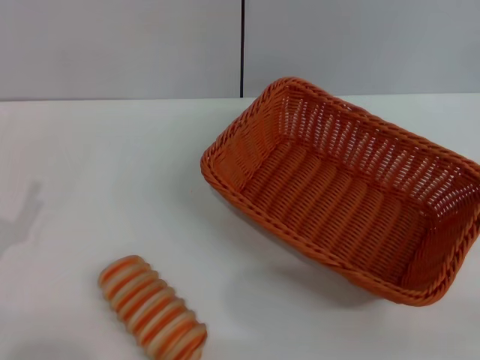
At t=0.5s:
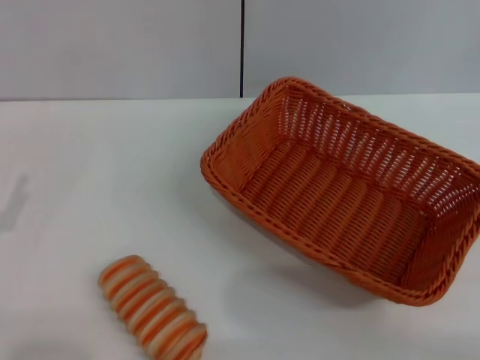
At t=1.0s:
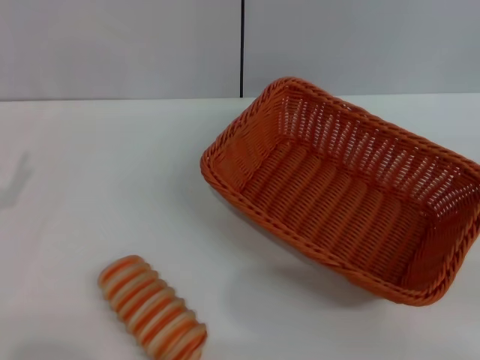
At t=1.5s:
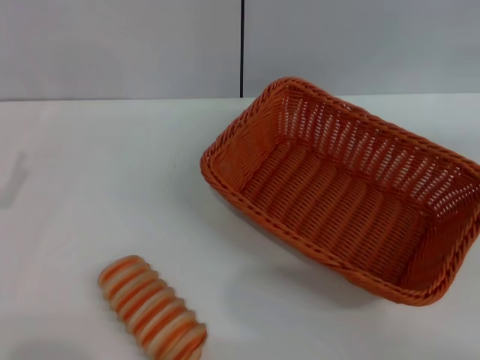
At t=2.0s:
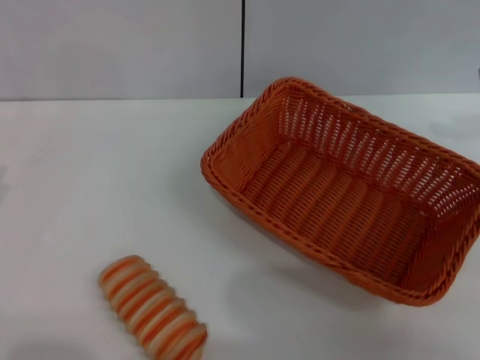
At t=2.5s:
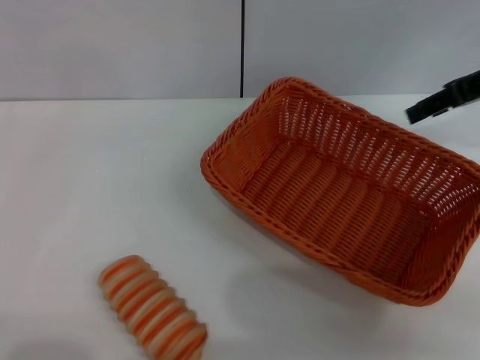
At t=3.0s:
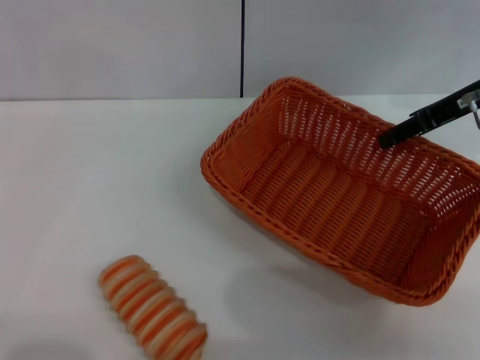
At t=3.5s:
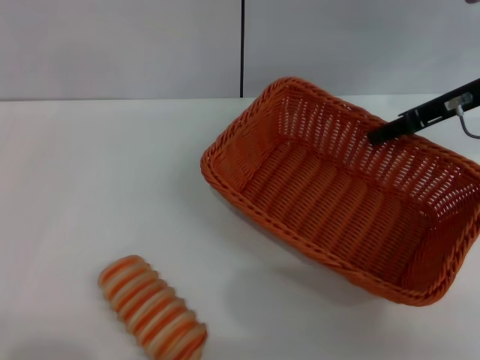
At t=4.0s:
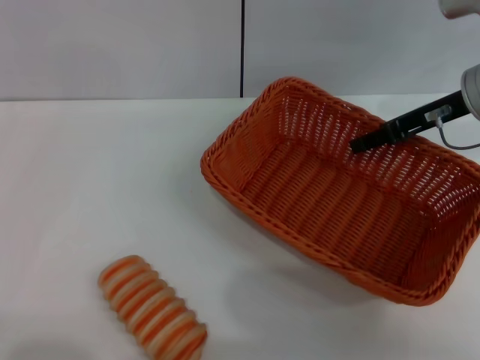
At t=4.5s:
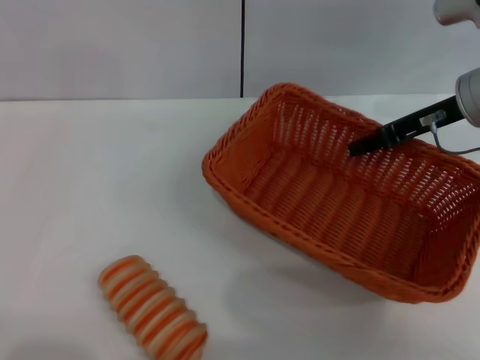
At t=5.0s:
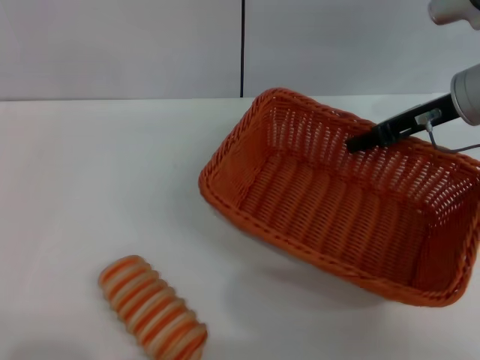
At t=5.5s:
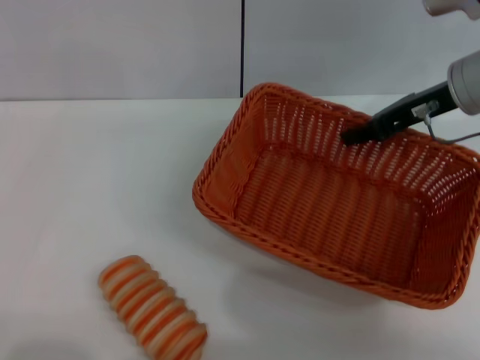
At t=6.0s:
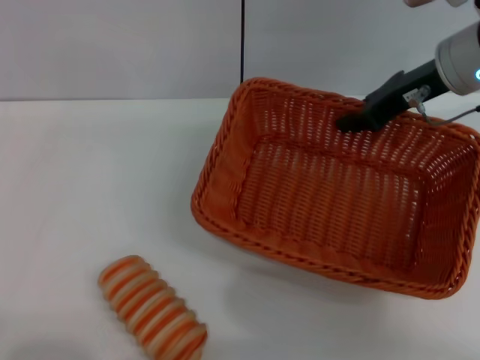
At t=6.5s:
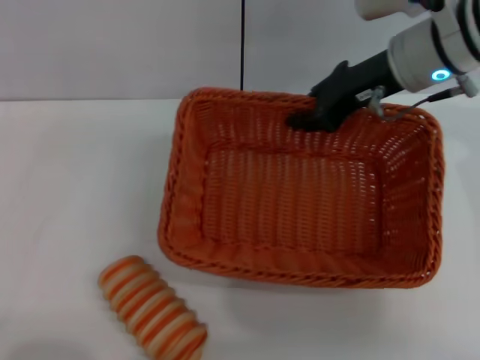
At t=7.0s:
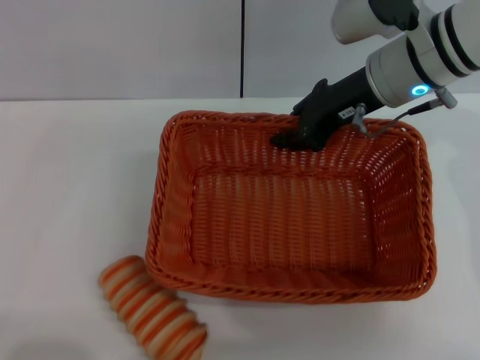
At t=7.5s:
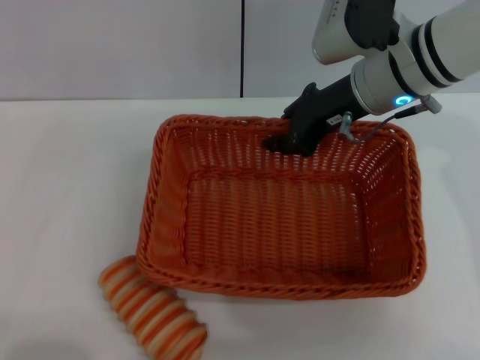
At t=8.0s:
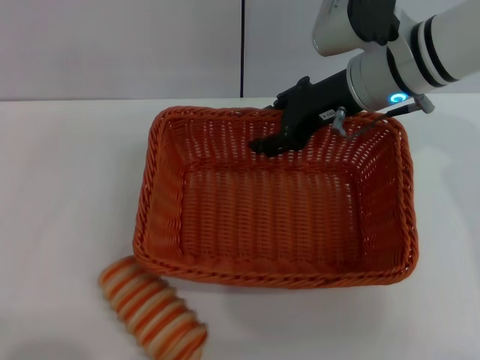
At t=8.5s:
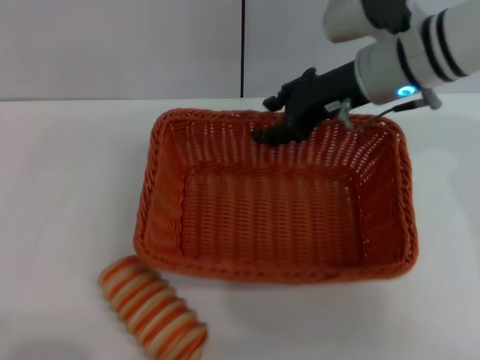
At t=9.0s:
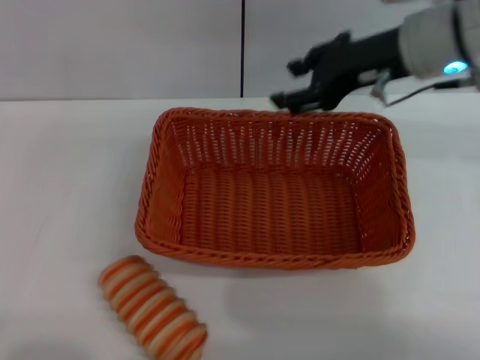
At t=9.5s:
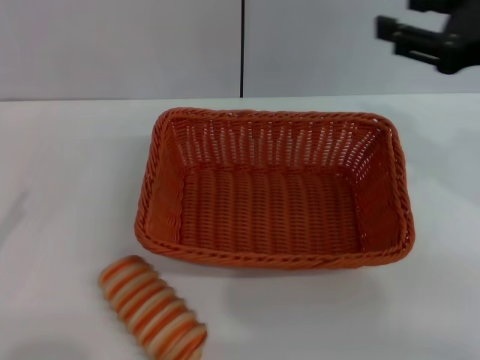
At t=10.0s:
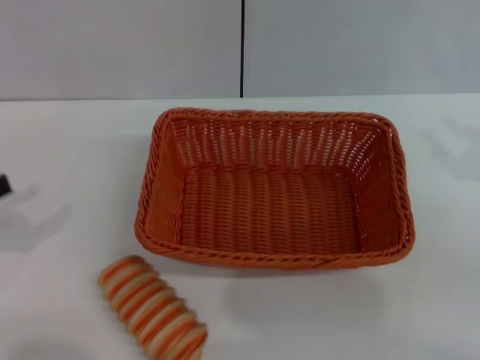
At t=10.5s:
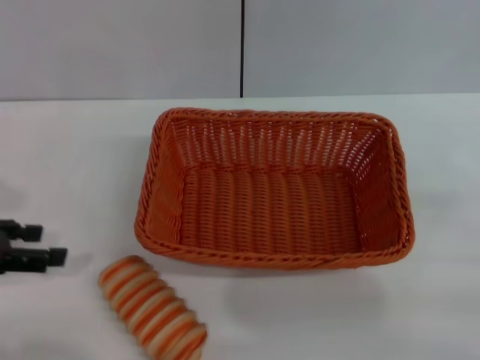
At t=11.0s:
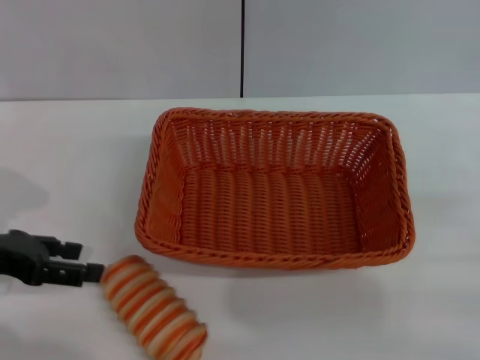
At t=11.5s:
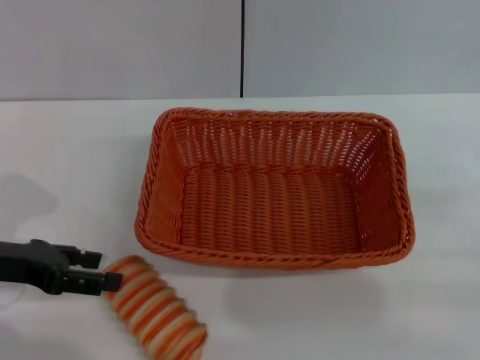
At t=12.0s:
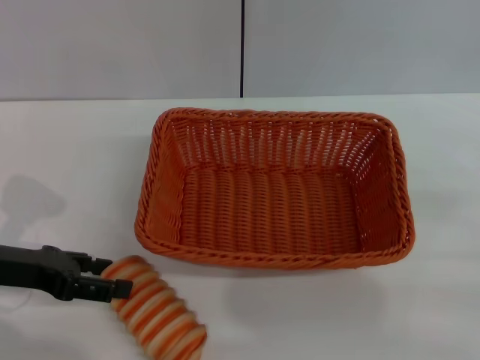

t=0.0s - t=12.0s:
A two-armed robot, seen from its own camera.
Step, t=0.0s - t=6.0s: Pick up the light basket with the right gripper.
Step, t=6.5s - t=9.0s: Place the light basket in the center of view with the right gripper.
t=0.0s - t=2.0s: The right gripper goes roughly 25 cm forward and upward, and opens.
t=2.0s - t=4.0s: The right gripper shifts about 15 cm to the left and downward.
t=4.0s - t=6.0s: The right gripper ends up approximately 5 cm from where it was, and closes its fingers.
t=6.0s - t=8.0s: The right gripper goes approximately 5 cm to the left.
t=8.0s - t=10.0s: The left gripper travels upward and forward by approximately 10 cm. The right gripper goes about 25 cm to the right and backward, and opens its fingers.
t=10.0s - t=12.0s: The left gripper goes some 10 cm to the right and forward.

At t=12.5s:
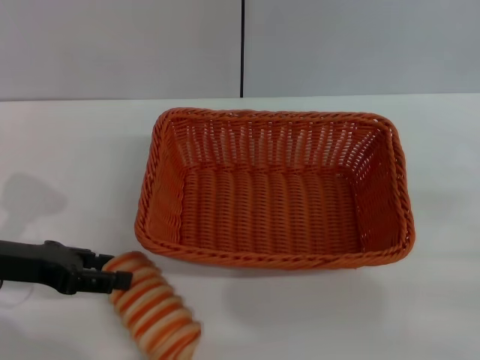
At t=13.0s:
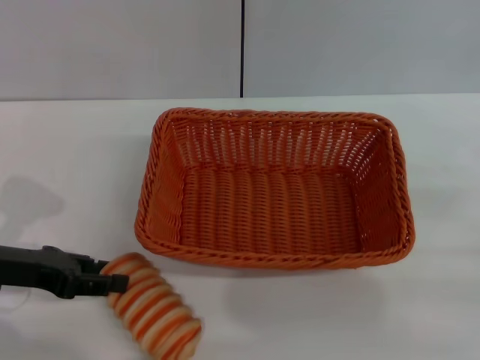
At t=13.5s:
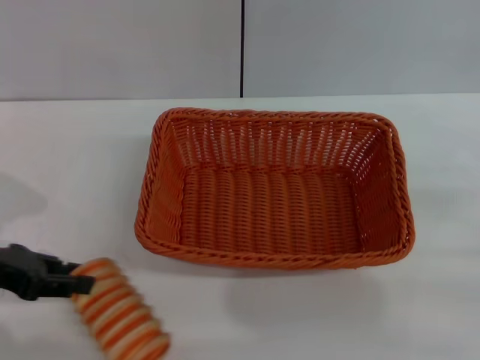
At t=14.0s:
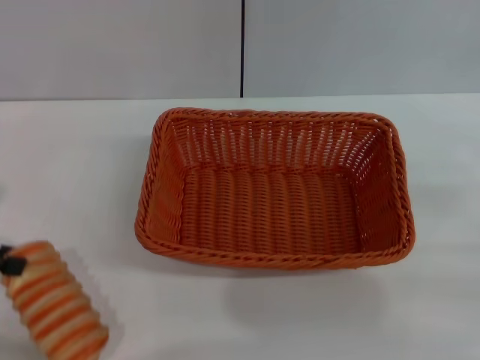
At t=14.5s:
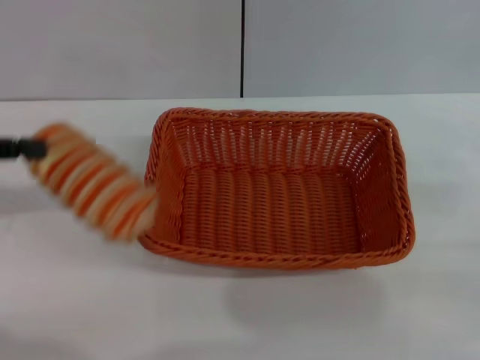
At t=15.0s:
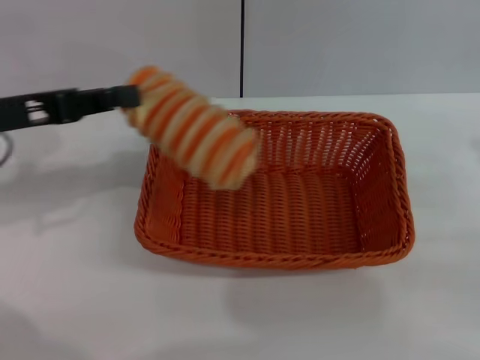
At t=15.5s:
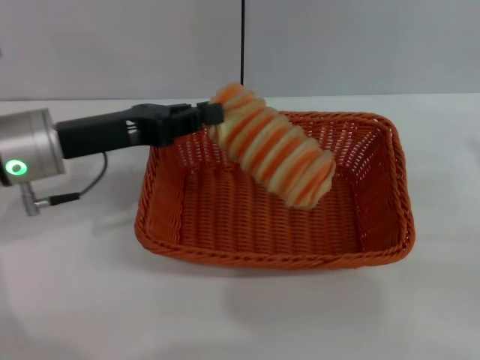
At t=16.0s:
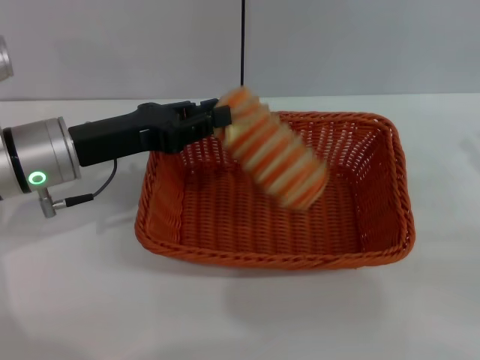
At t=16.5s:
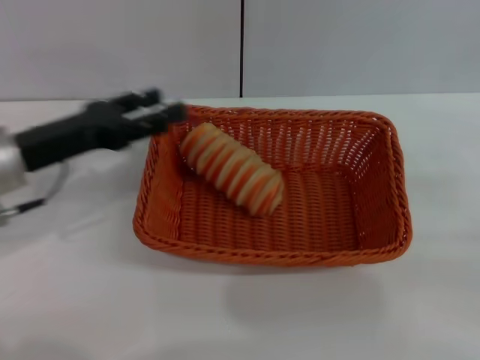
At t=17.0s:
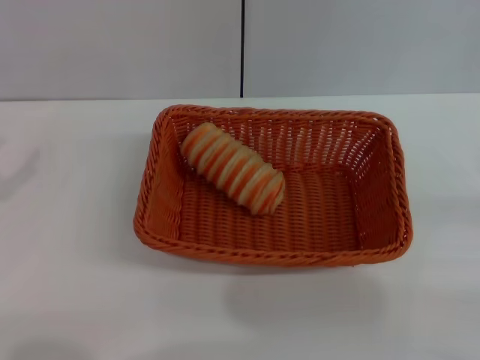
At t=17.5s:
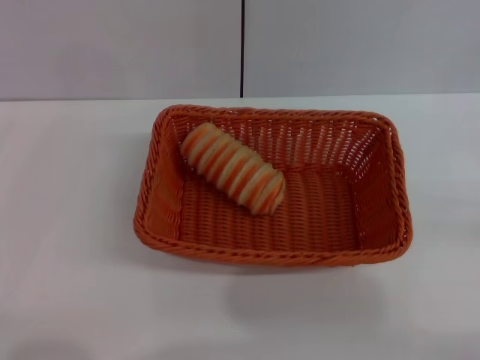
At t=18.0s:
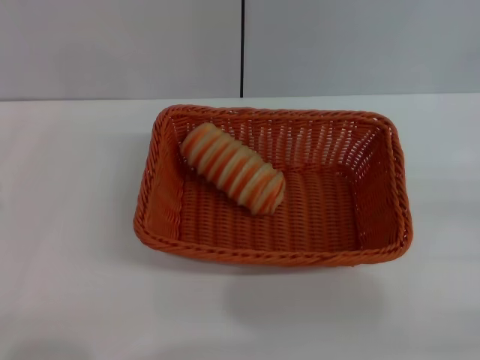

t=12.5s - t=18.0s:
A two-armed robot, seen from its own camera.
Step, t=14.5s - t=16.0s: Place the long bread into the light basket with the left gripper.
t=12.5s - t=14.5s: The left gripper travels upward and to the left by about 10 cm, and closes its fingers.
t=14.5s - t=16.0s: The left gripper is displaced to the right and downward by about 15 cm.
t=16.0s - t=18.0s: The right gripper changes place by some 5 cm. Meanwhile the left gripper moves backward and to the left, about 25 cm, and opens.

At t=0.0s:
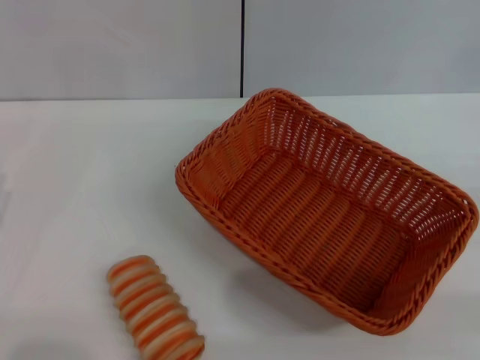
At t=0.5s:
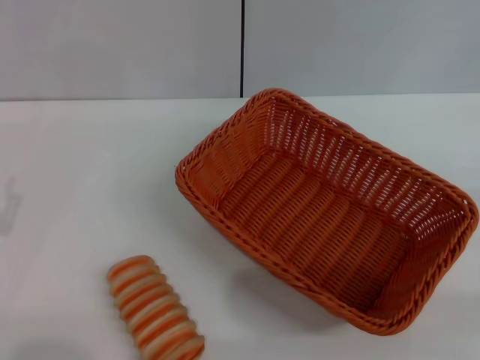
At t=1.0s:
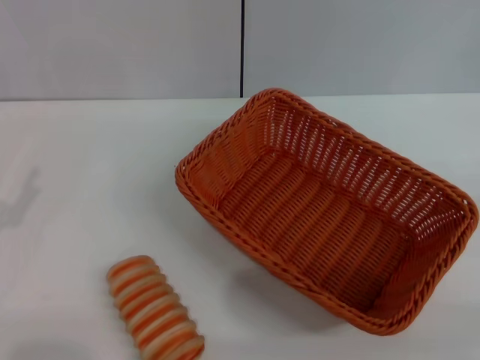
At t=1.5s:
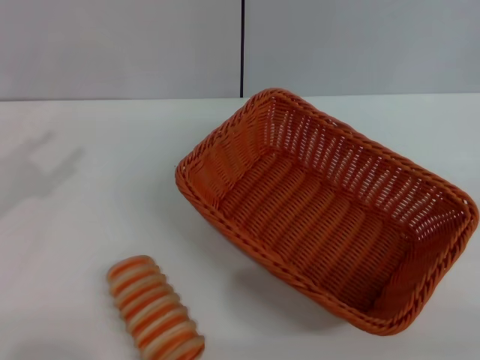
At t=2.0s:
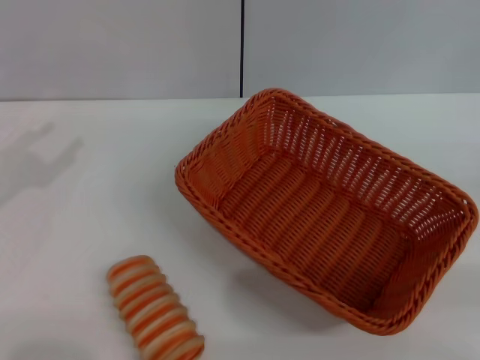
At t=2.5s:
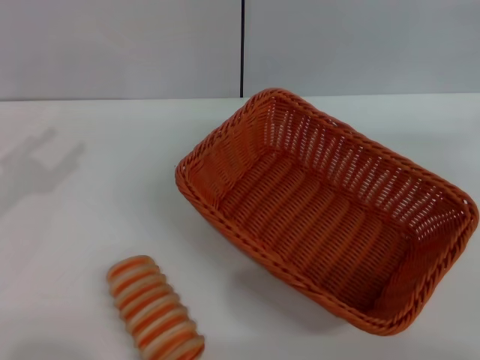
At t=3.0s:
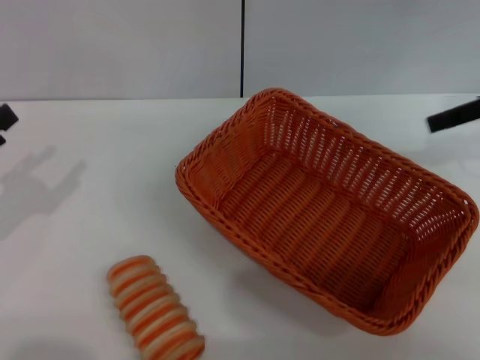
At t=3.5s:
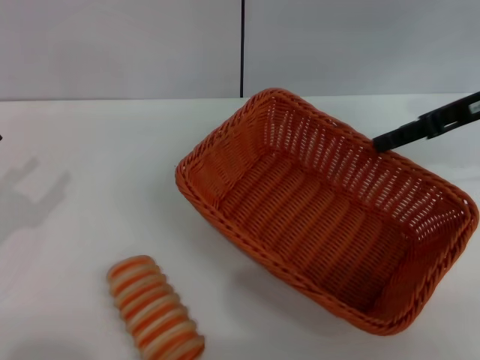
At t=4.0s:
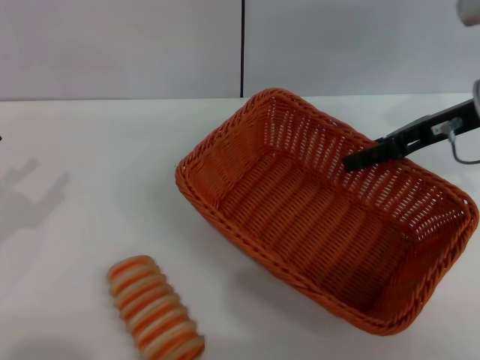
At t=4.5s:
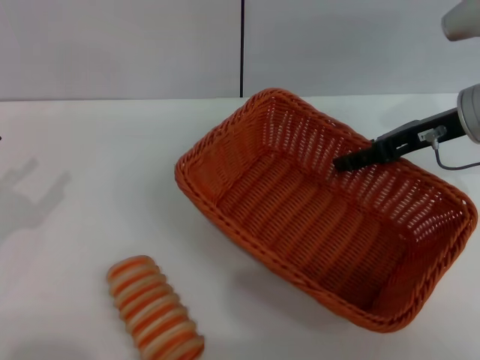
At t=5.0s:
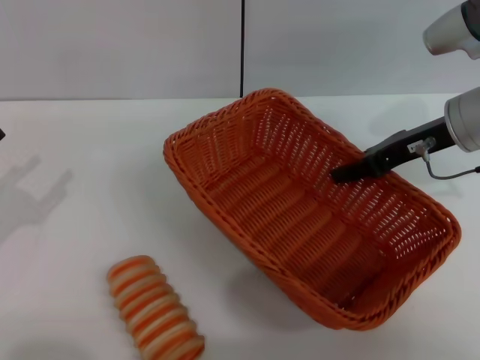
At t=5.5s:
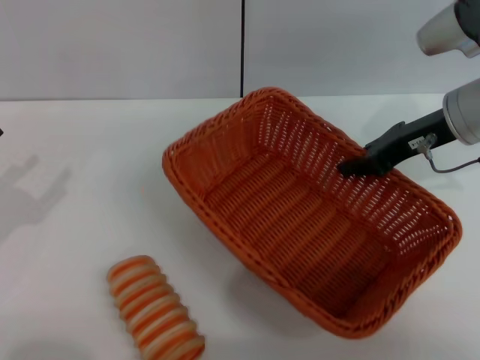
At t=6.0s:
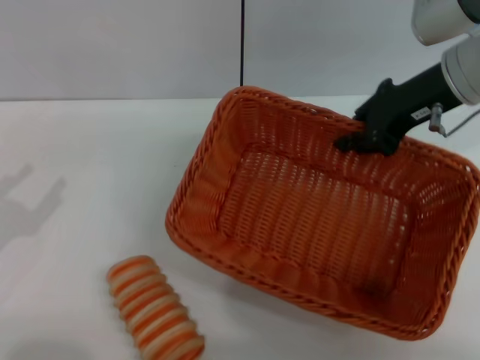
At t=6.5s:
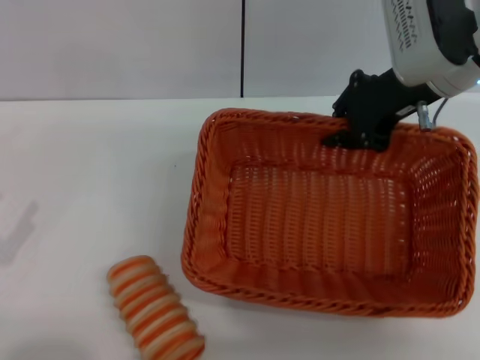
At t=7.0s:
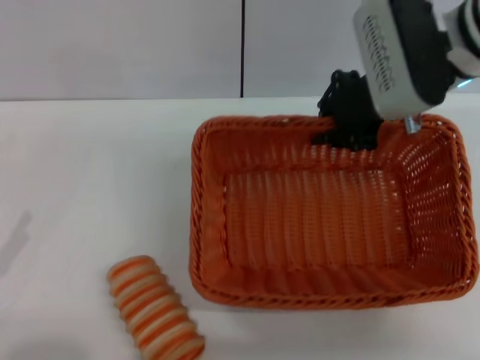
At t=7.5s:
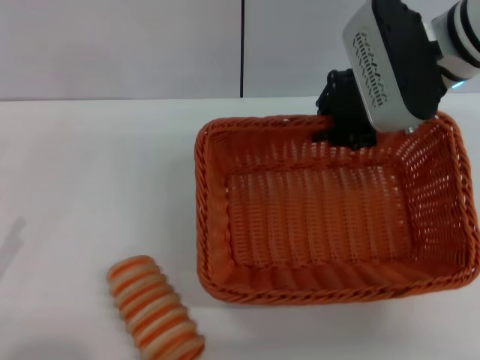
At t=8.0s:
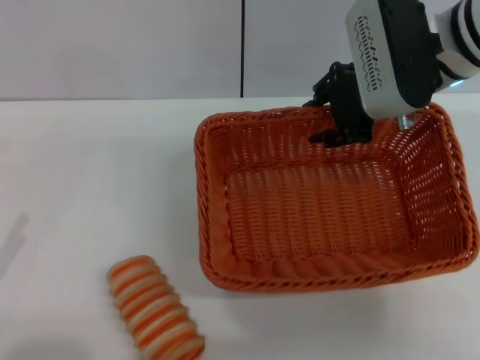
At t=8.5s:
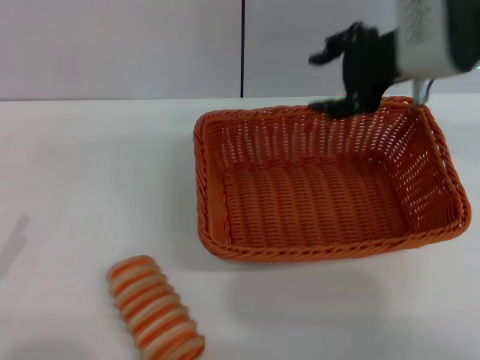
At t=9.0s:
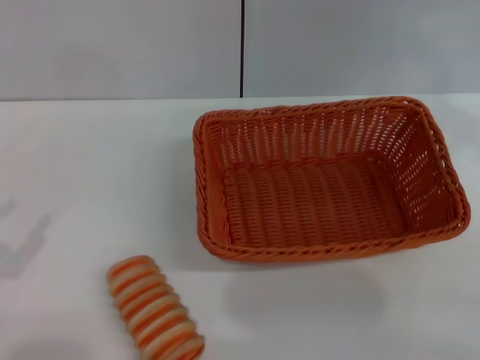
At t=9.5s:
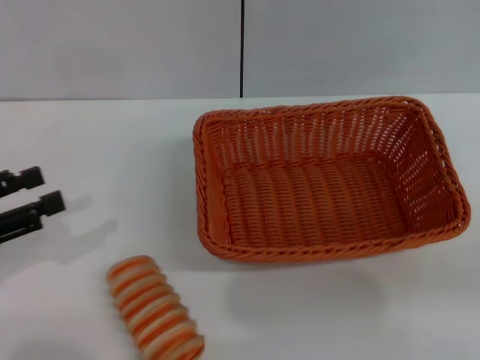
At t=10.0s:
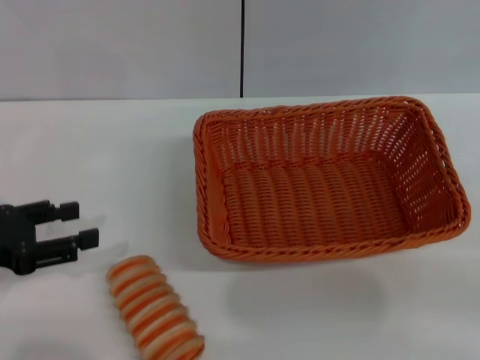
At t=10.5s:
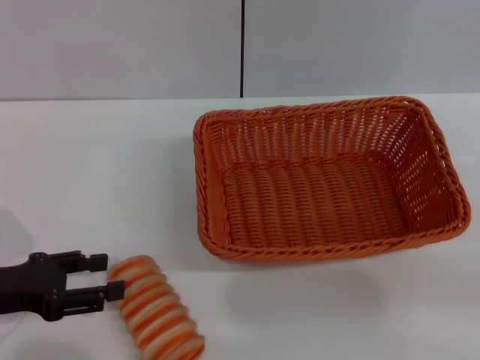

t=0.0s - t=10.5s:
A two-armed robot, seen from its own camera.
Step, t=0.0s - t=5.5s: Pick up the light basket with the right gripper.
Step, t=6.0s - t=8.0s: Place the light basket in the center of view with the right gripper.
t=2.0s - t=4.0s: The right gripper shifts some 25 cm to the left and forward.
t=4.0s - t=6.5s: The right gripper heads to the left, covering about 5 cm, and closes. The left gripper travels backward by approximately 5 cm.
t=6.5s - t=8.5s: The right gripper opens its fingers.
t=8.5s - t=10.5s: The right gripper heads to the right and backward, covering about 30 cm. Meanwhile the left gripper travels forward by roughly 10 cm.
